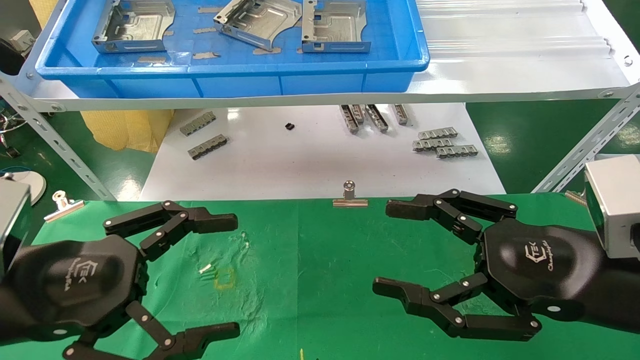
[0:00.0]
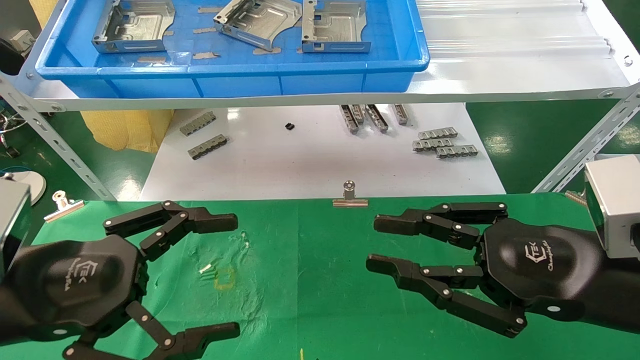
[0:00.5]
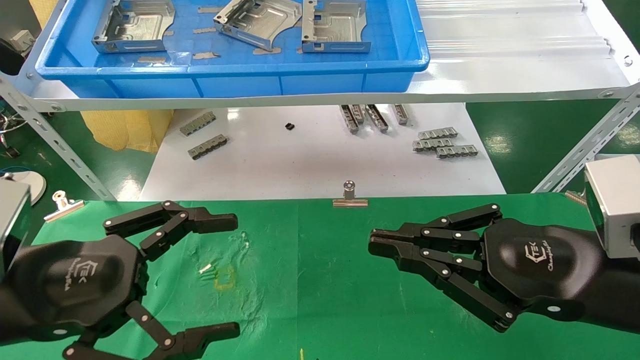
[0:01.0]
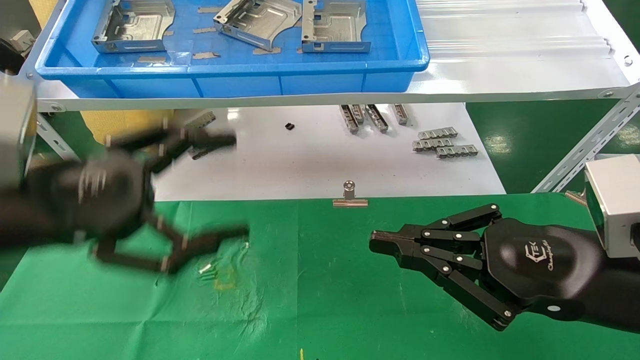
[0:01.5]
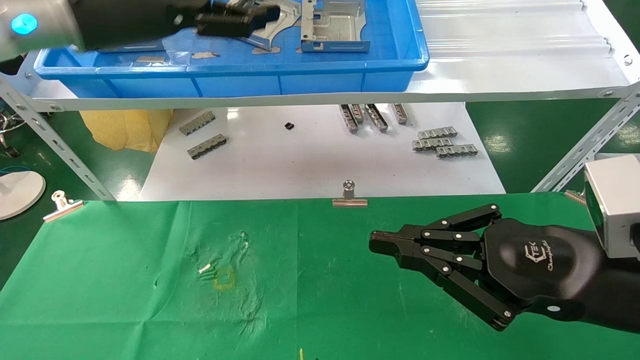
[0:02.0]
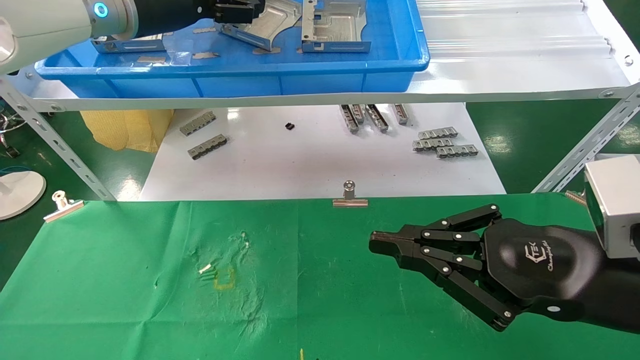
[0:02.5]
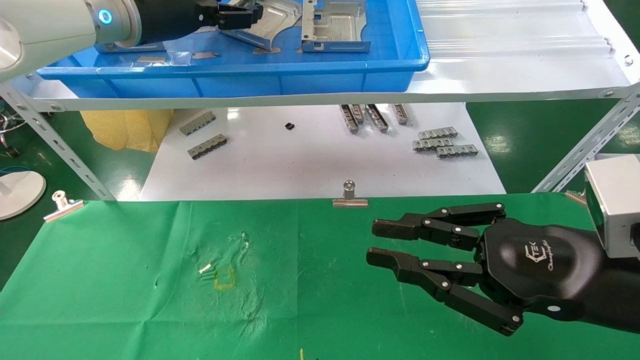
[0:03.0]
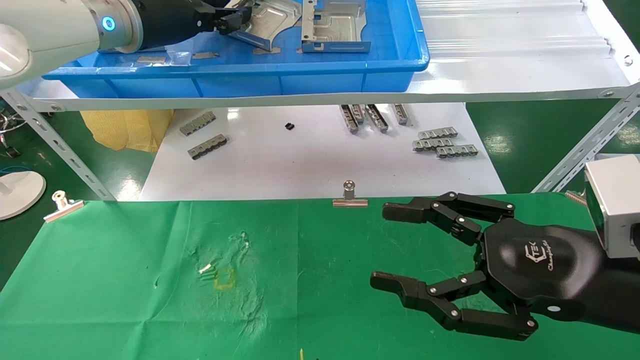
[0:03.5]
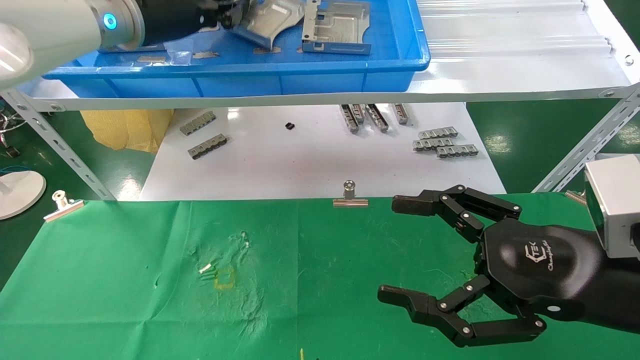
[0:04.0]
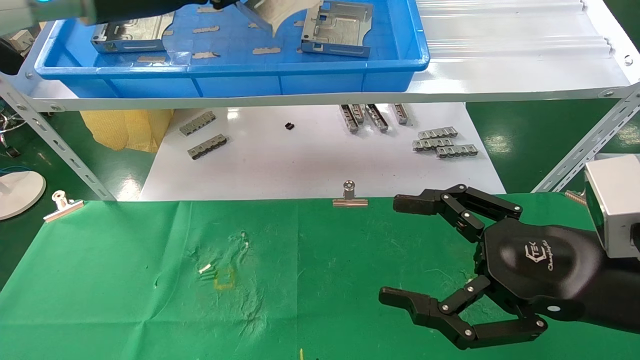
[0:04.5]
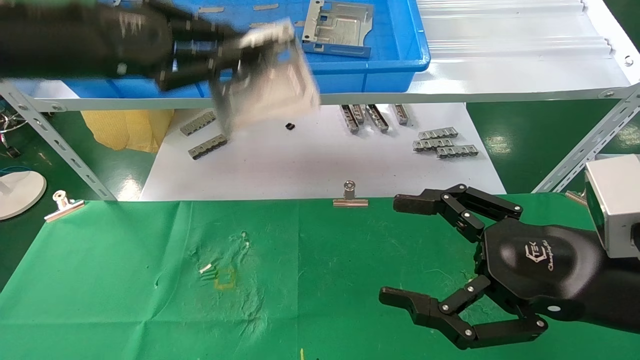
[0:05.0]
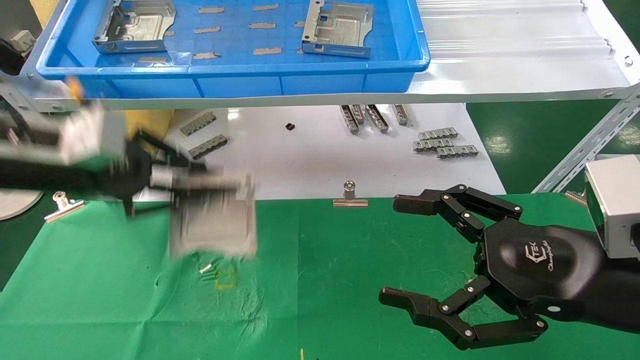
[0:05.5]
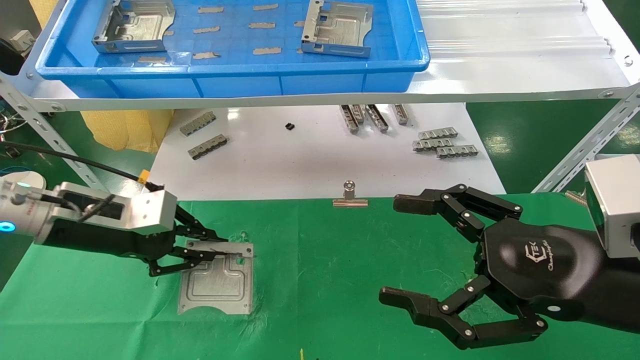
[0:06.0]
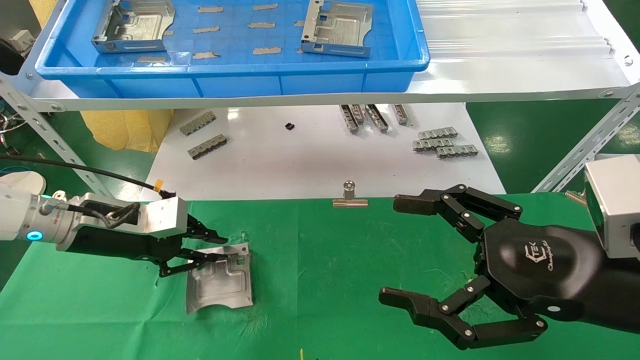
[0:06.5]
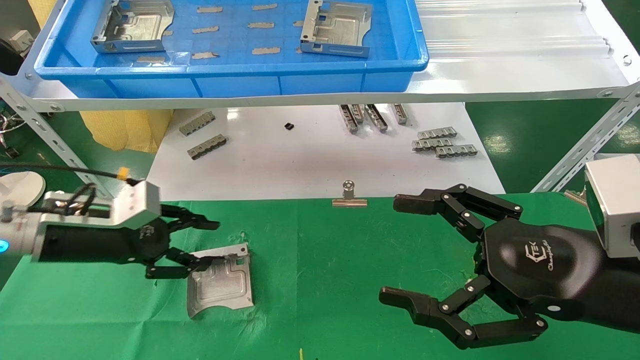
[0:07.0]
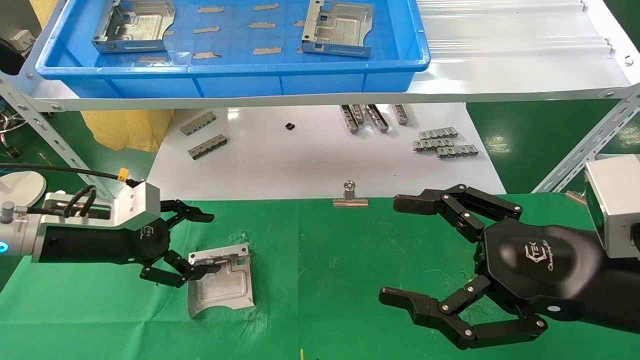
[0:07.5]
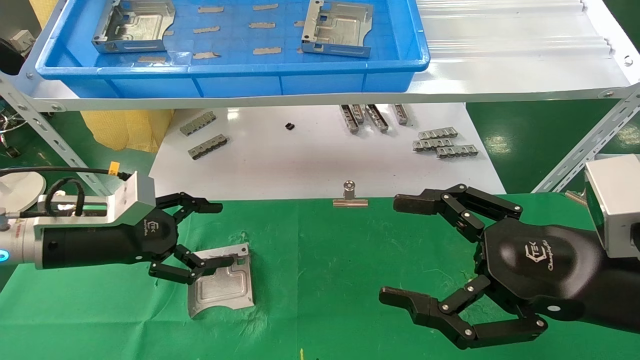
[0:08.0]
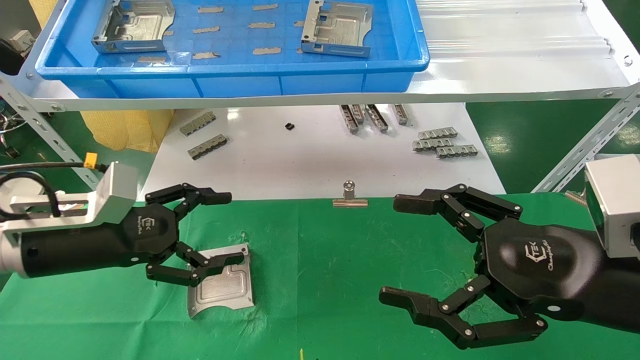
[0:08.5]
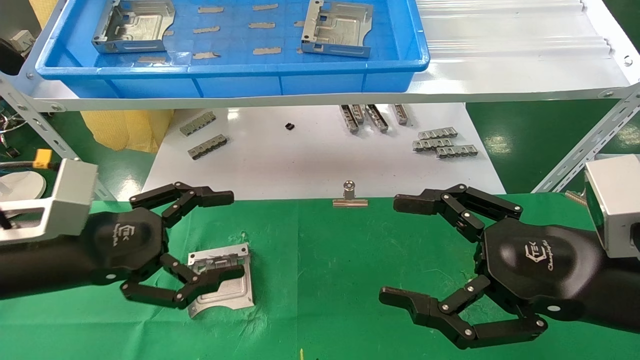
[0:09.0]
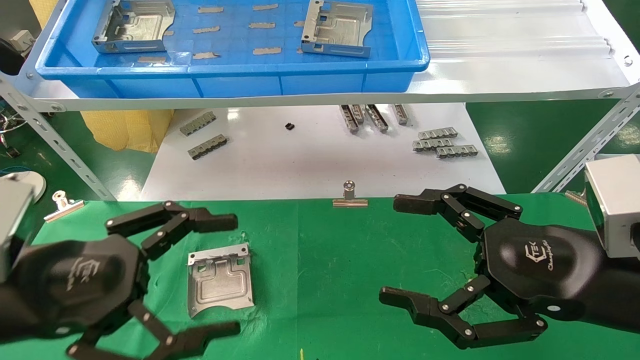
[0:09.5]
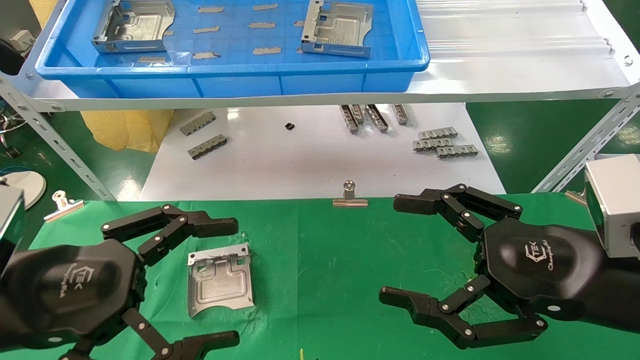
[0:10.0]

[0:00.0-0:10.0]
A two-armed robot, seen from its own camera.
Task of the whole recording: use the mechanical arm to pick up the parts and place them on the table.
Step, 0:02.0 to 0:03.5: Pick up the hard drive bracket from the feeding area.
Step, 0:04.0 to 0:06.5: Place the hard drive bracket into the box.
0:00.0 to 0:02.0: The right gripper closes up, while the left gripper goes approximately 25 cm upward and forward.
0:02.0 to 0:04.0: The right gripper opens its fingers. Meanwhile the left gripper shifts approximately 5 cm forward, and closes.
0:04.0 to 0:06.0: The left gripper moves downward, approximately 25 cm.
0:06.0 to 0:08.0: The left gripper opens up.
0:08.0 to 0:10.0: The left gripper goes about 15 cm backward.
